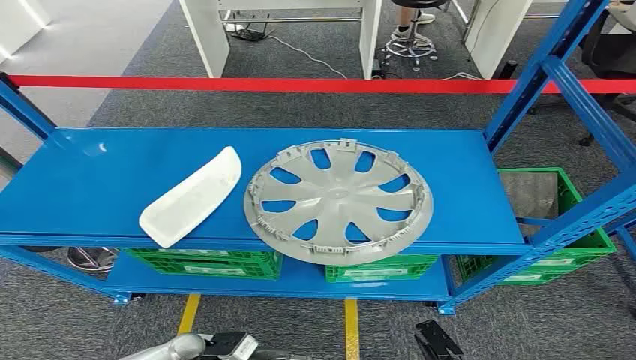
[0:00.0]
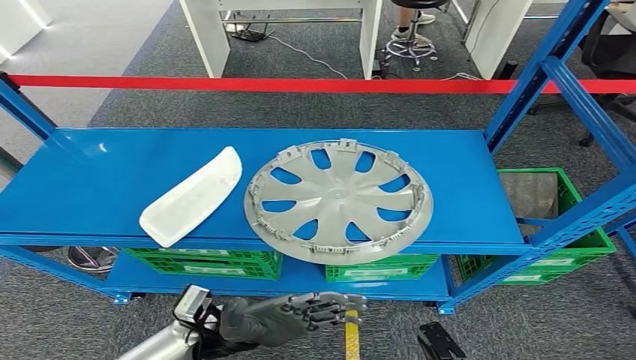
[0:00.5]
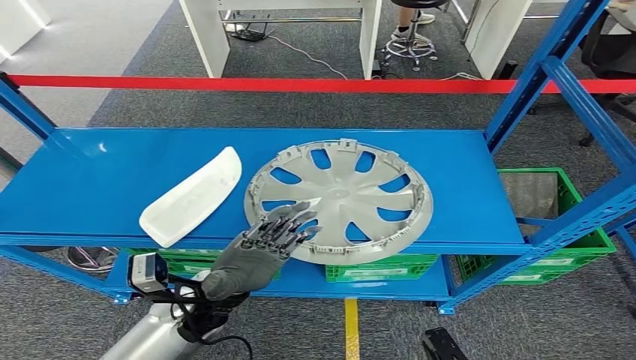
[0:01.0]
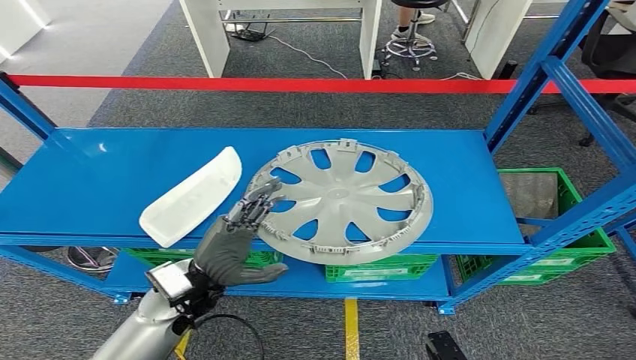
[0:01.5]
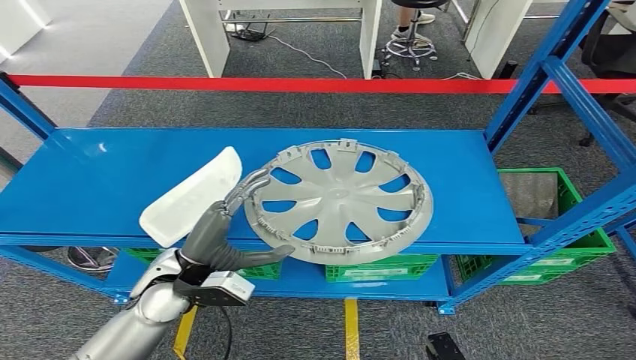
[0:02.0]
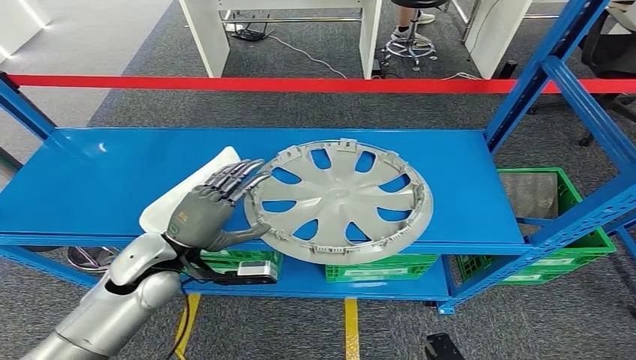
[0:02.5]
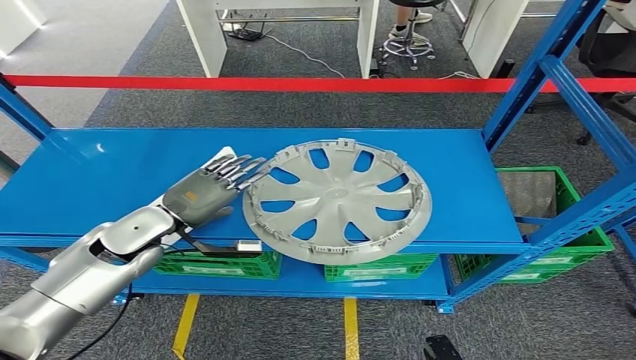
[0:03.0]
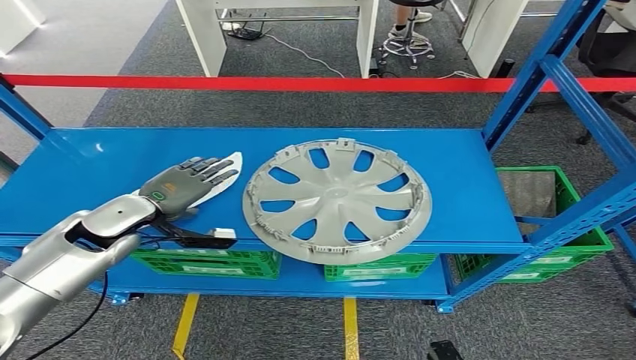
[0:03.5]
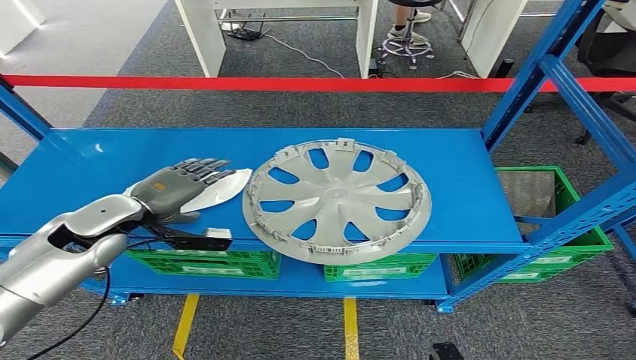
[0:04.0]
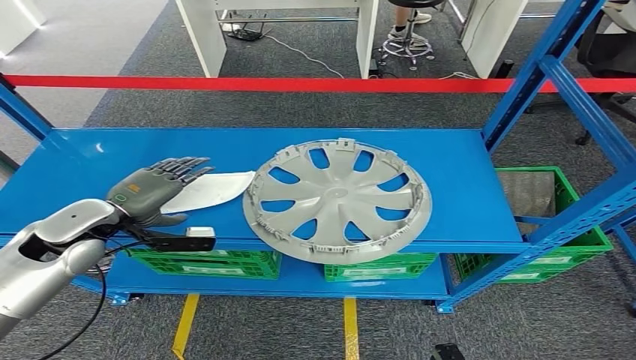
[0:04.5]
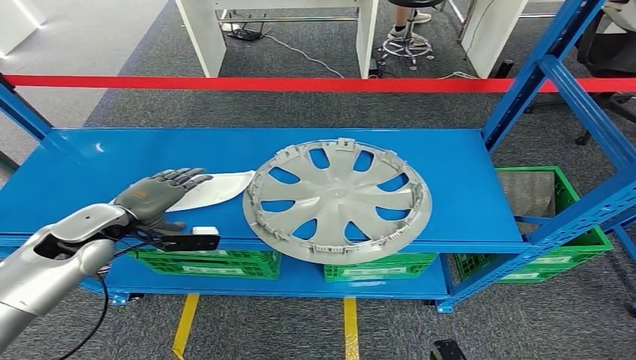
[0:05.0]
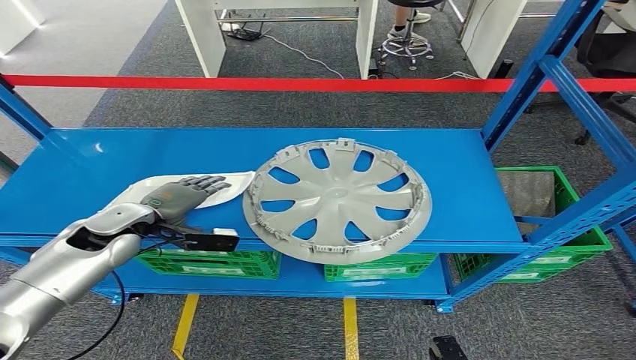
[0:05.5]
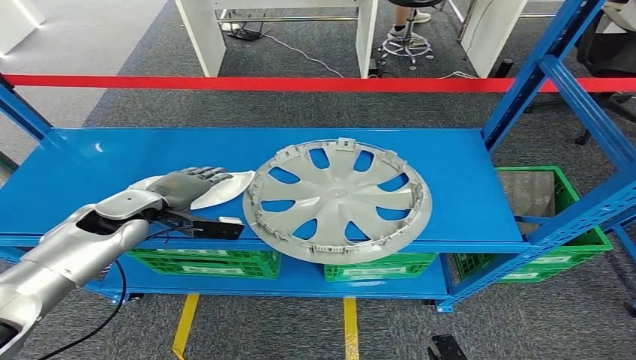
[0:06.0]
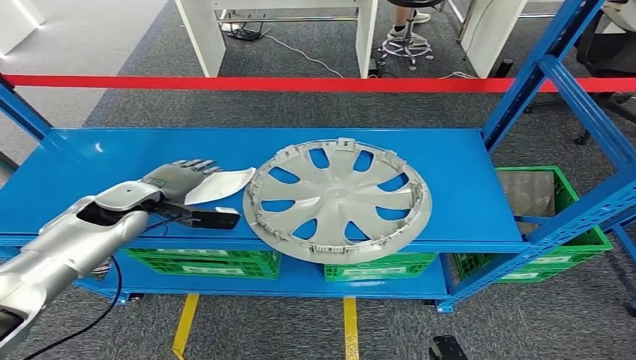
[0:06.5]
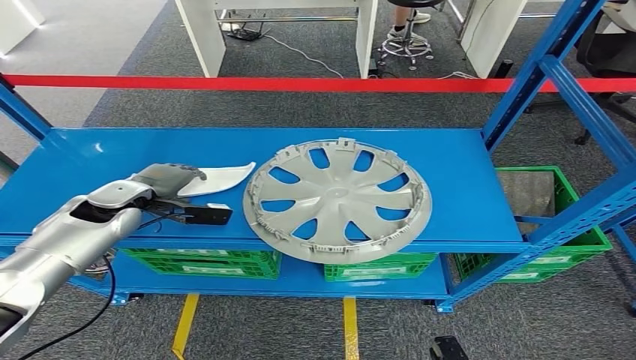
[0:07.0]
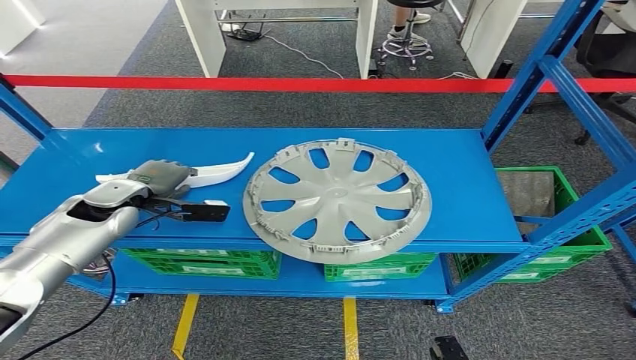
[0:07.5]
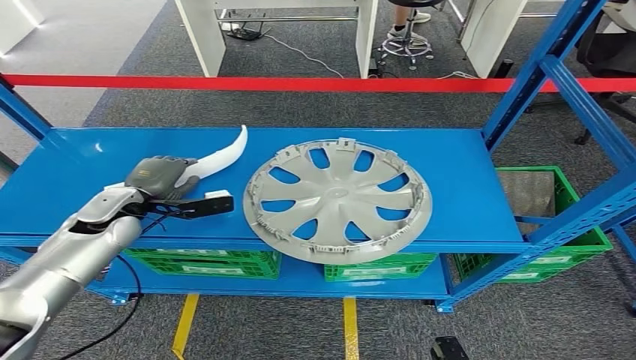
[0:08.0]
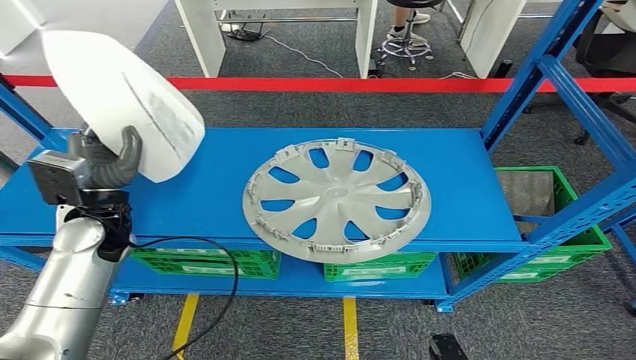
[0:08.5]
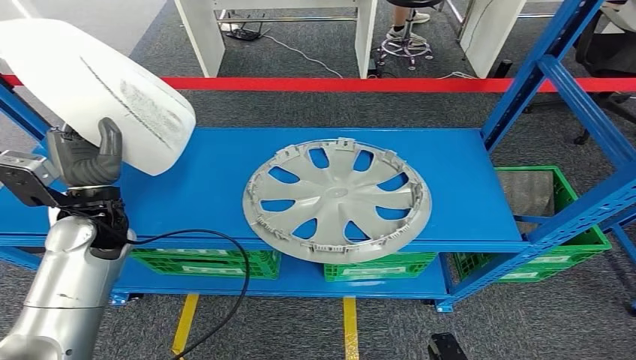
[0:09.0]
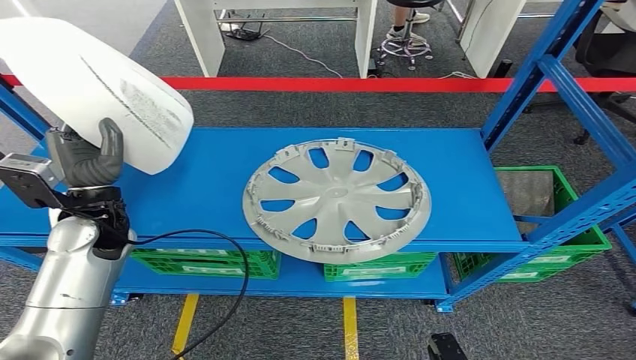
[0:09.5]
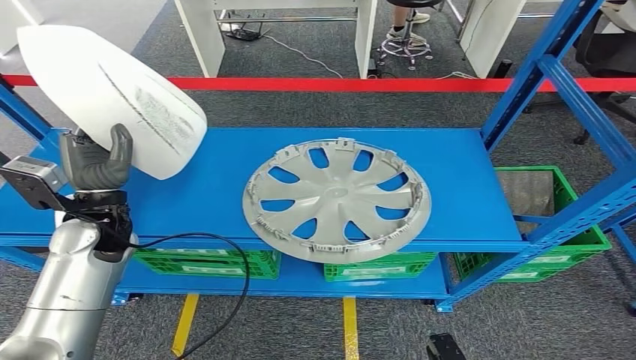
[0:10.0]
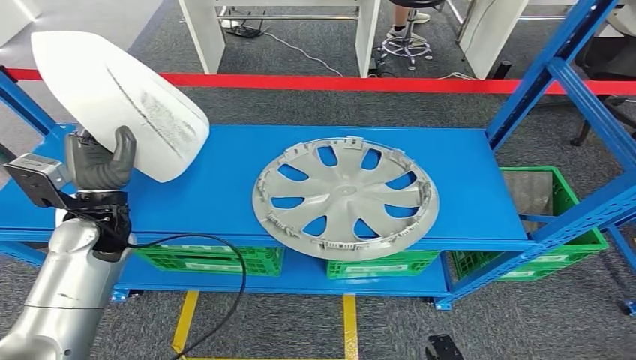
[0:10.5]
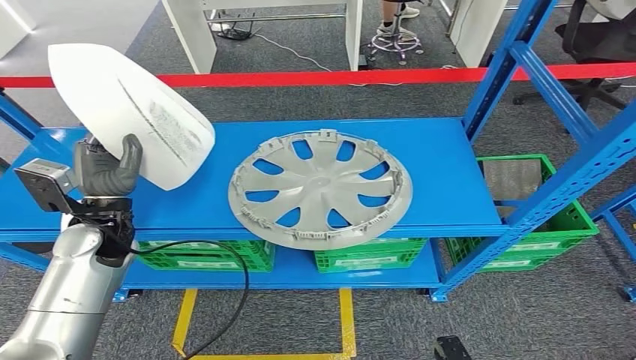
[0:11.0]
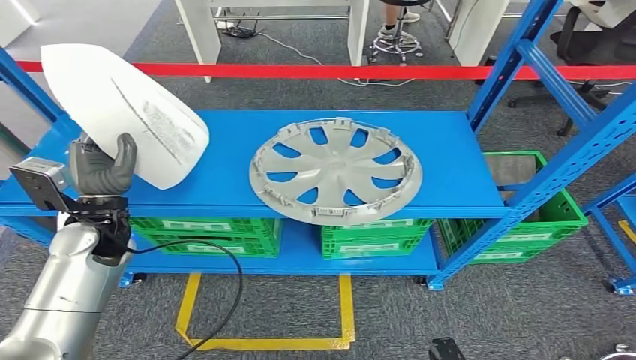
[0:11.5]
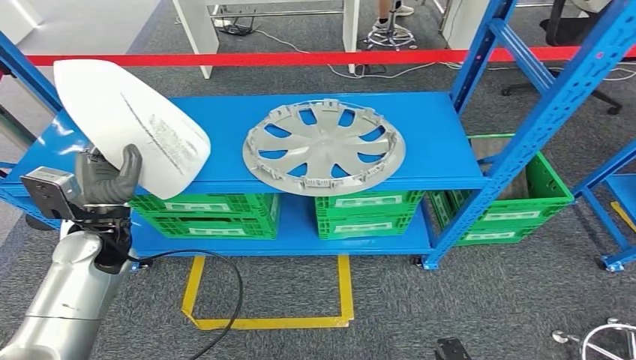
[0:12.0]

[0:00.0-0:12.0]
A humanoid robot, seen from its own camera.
0:02.0 to 0:04.0: The left hand heads to the left and forward, covering about 15 cm.
0:04.0 to 0:06.0: The hands stay close to where they were, moving slightly.
0:08.0 to 0:10.0: The left hand moves upward and backward, approximately 10 cm.

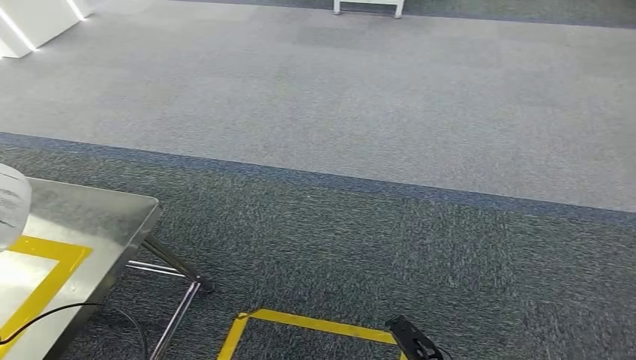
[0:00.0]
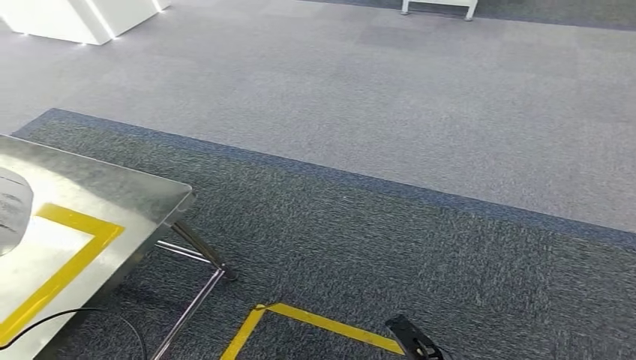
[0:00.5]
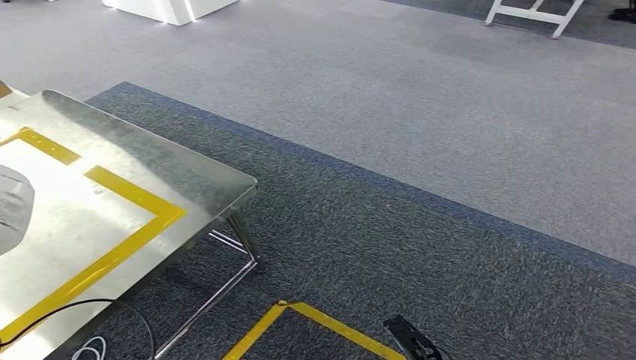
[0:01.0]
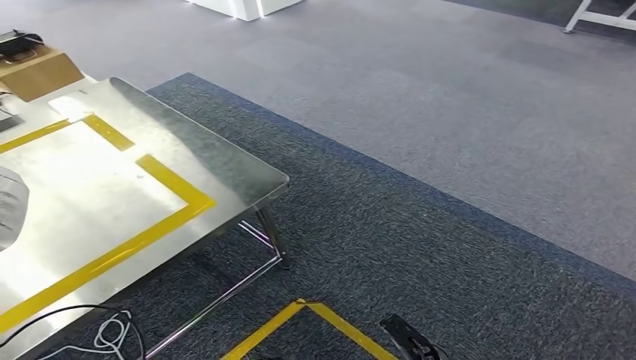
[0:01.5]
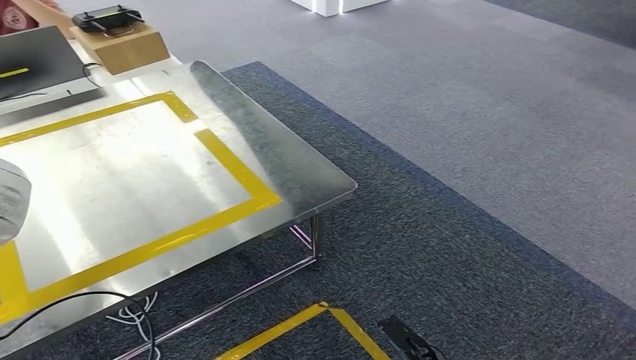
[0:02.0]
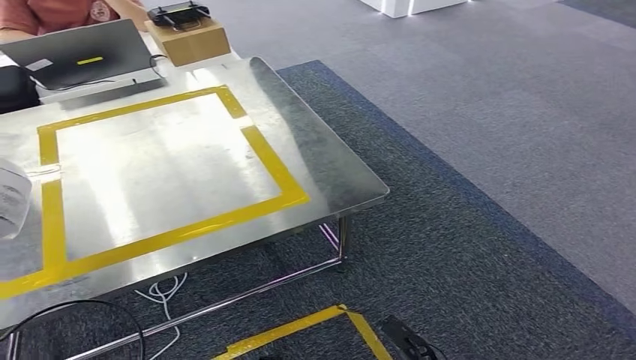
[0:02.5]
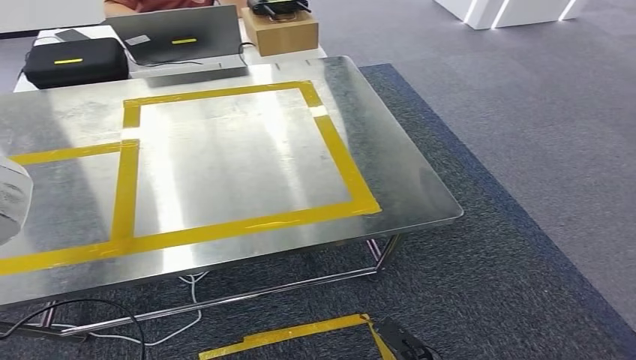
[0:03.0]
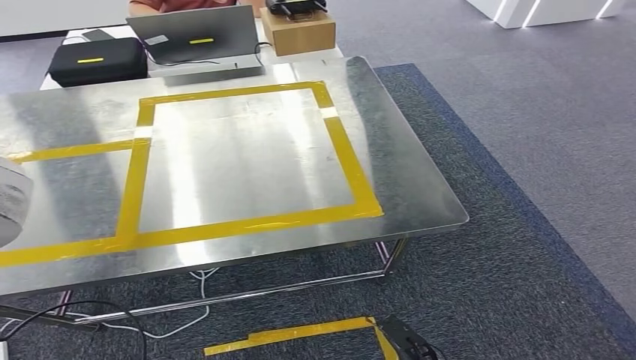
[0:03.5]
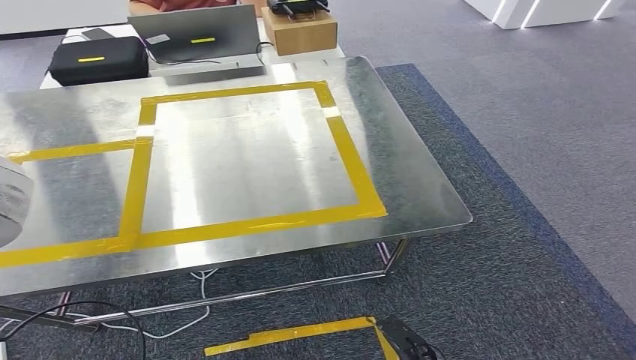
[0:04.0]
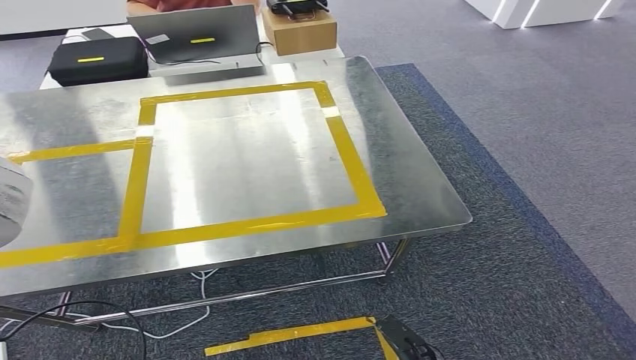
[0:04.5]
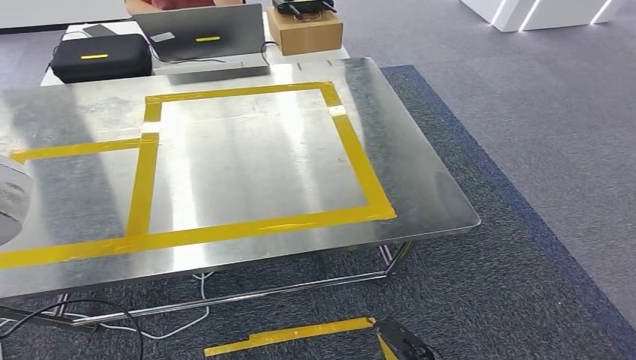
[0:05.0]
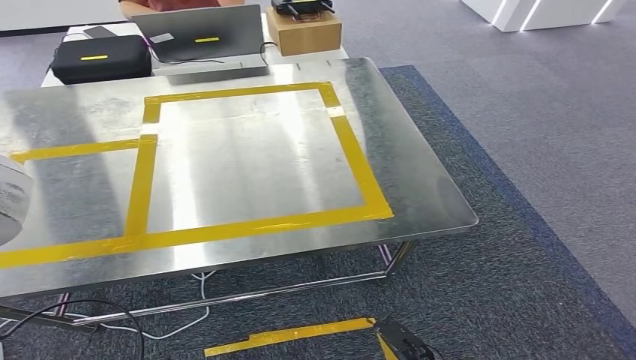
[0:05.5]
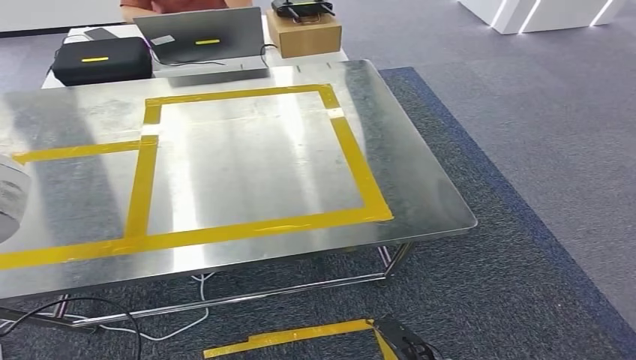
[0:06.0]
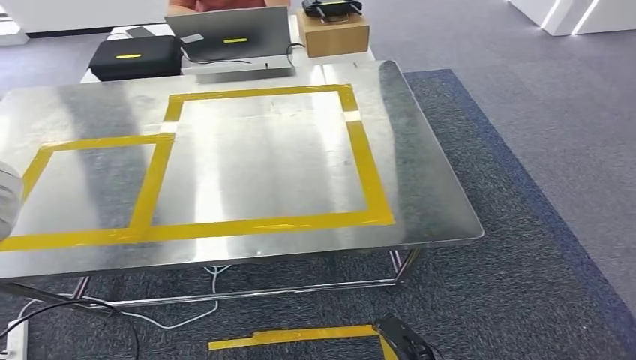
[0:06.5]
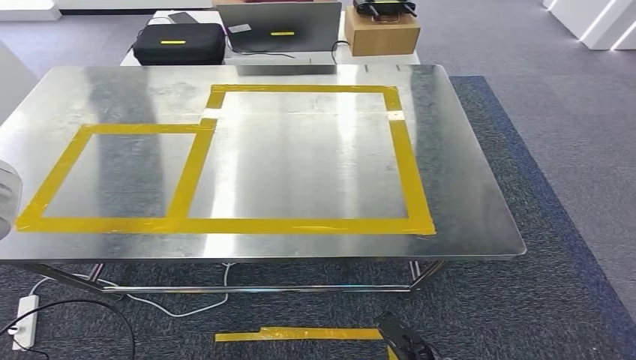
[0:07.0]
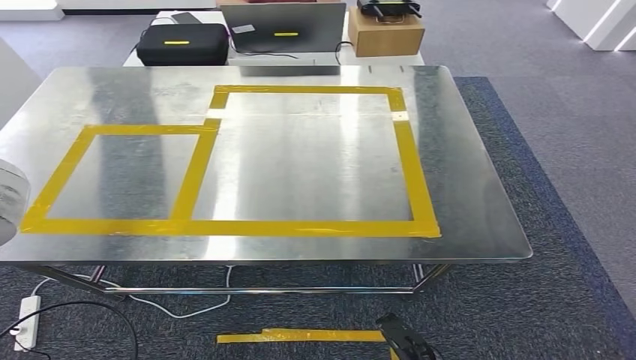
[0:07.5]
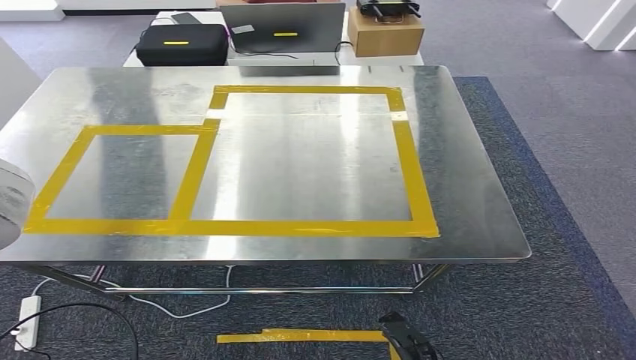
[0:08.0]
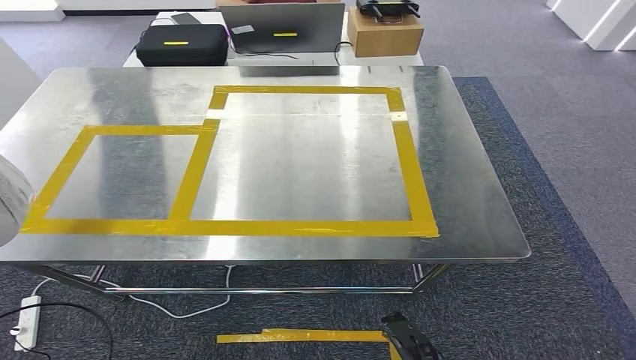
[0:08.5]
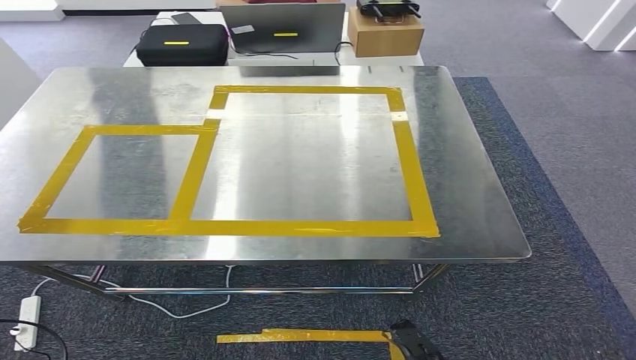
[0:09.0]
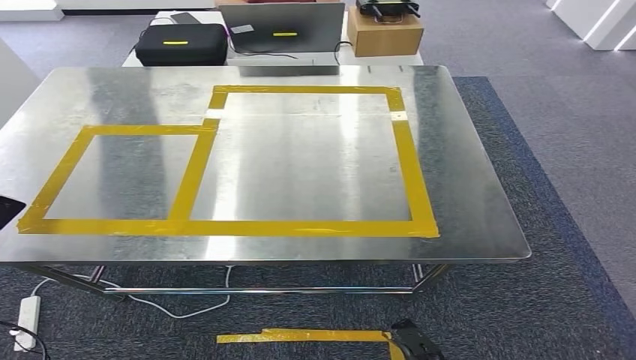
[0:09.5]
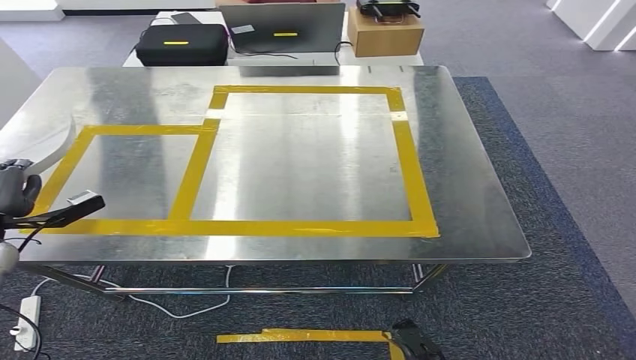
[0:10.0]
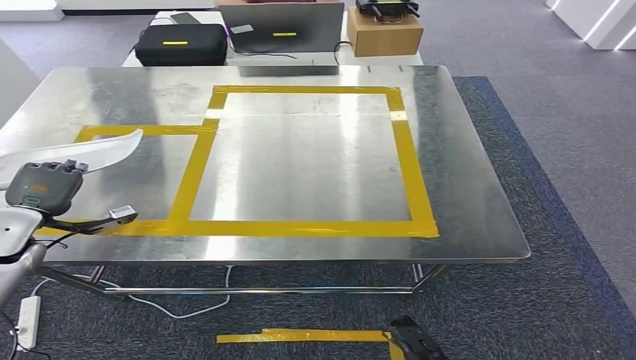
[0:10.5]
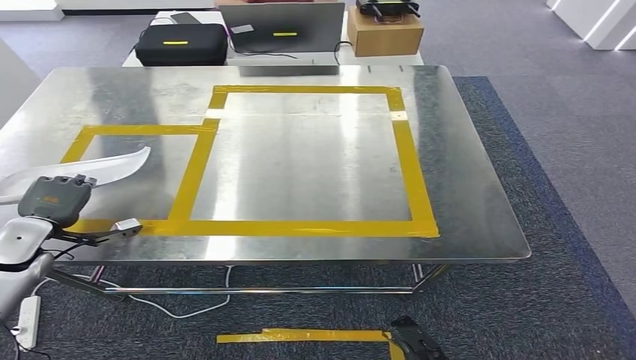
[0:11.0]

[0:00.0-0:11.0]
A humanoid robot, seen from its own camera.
Step, 0:00.0 to 0:04.5: Bring the small component to the front of the workbench.
0:03.5 to 0:05.5: Both hands stay about where they are.
0:07.5 to 0:09.0: The left hand moves to the left, roughly 10 cm.
0:09.0 to 0:11.0: The left hand heads forward and to the right, covering about 15 cm.
